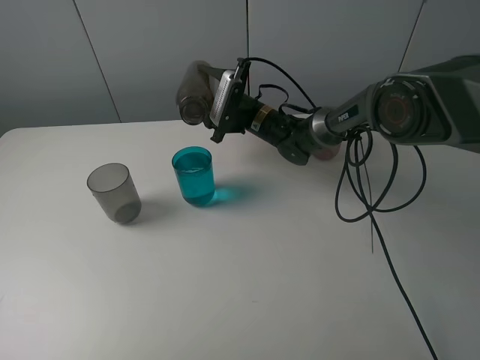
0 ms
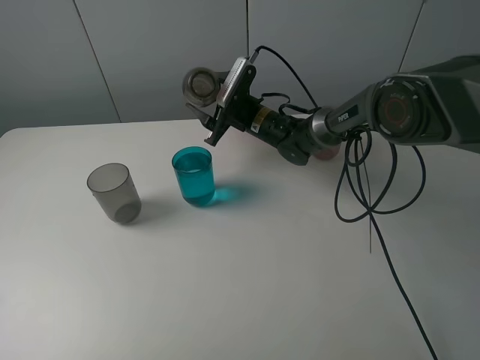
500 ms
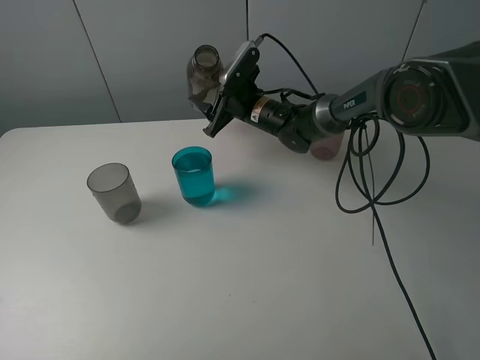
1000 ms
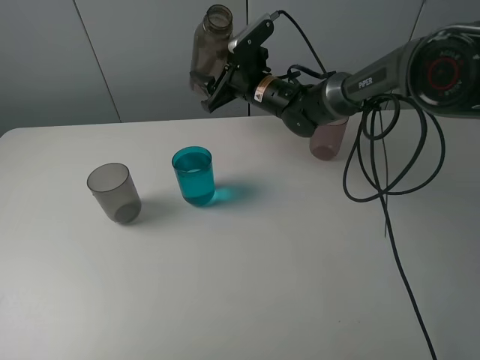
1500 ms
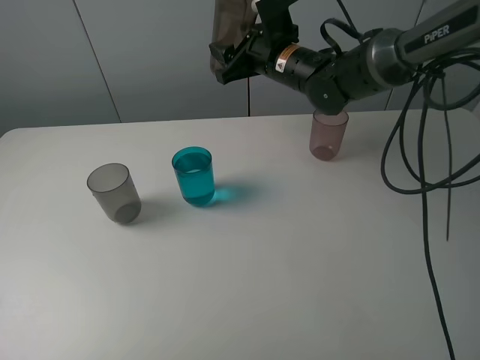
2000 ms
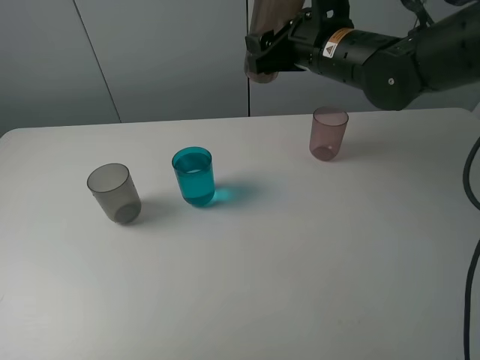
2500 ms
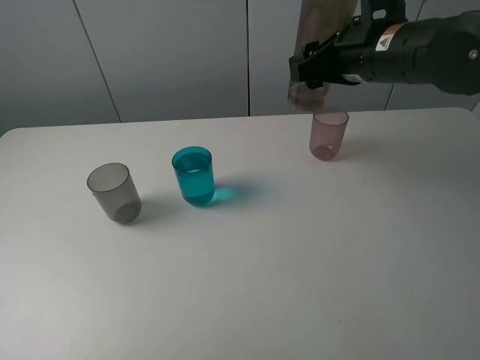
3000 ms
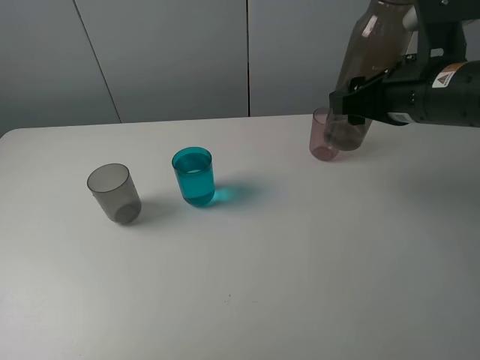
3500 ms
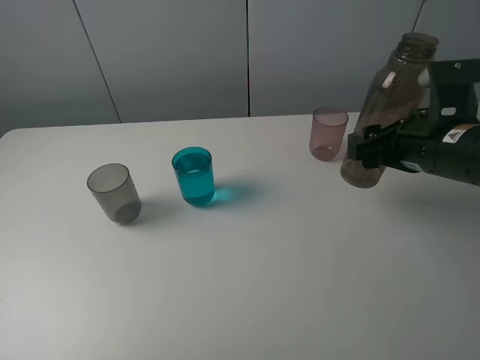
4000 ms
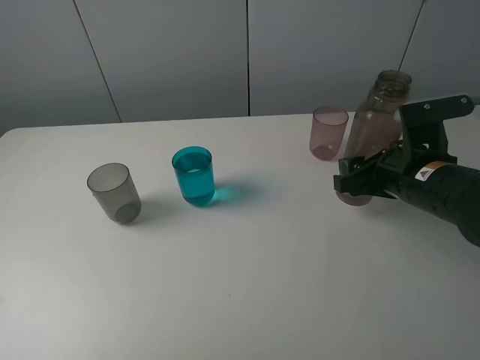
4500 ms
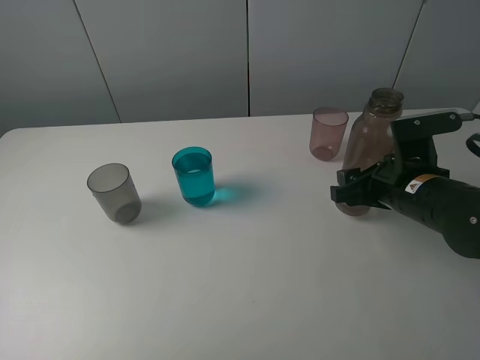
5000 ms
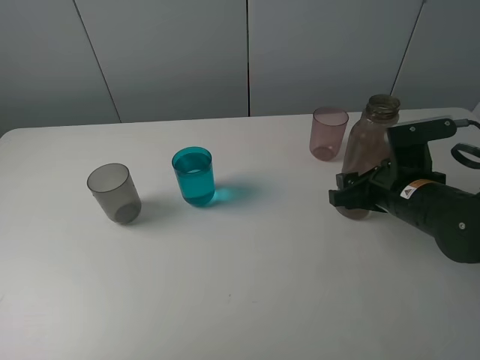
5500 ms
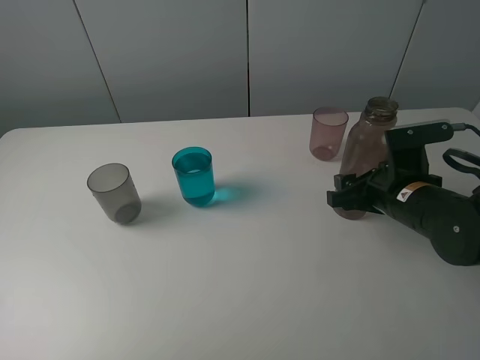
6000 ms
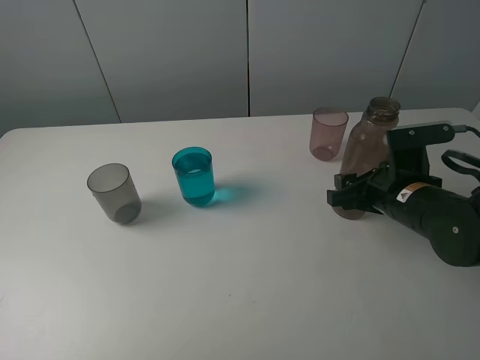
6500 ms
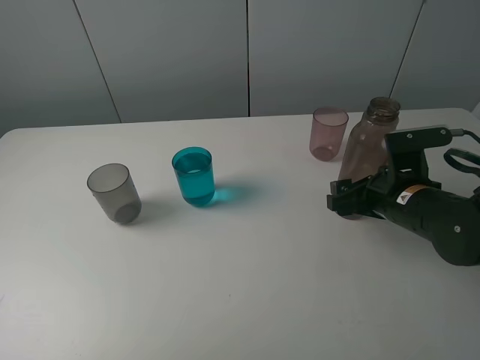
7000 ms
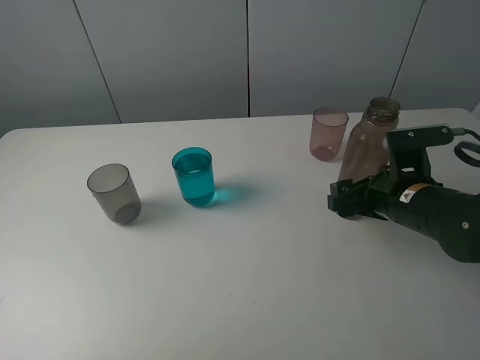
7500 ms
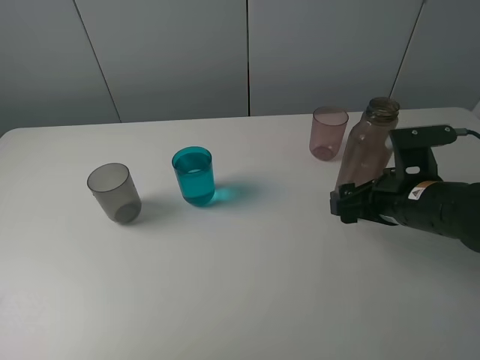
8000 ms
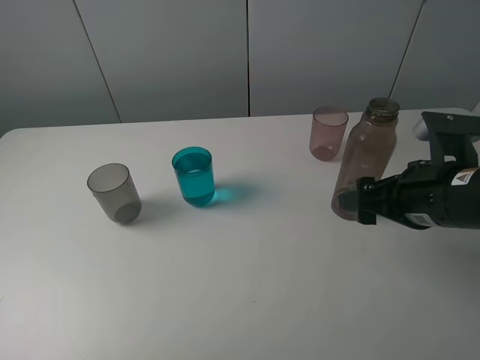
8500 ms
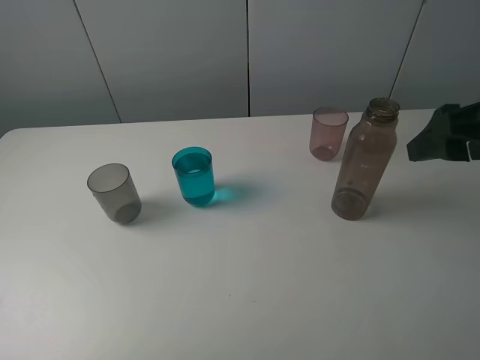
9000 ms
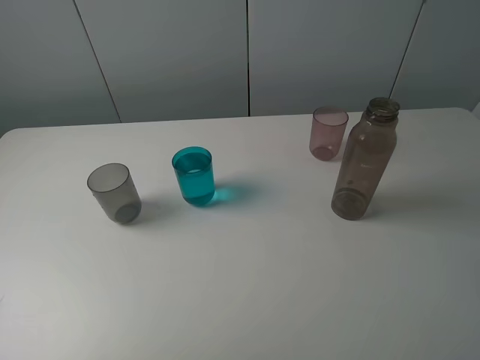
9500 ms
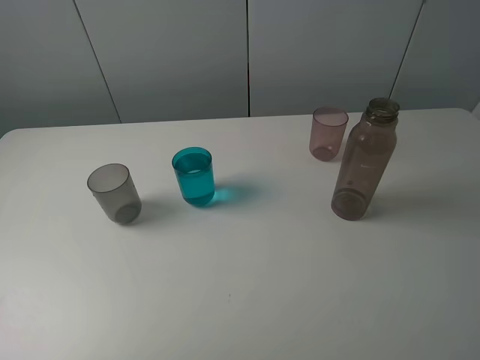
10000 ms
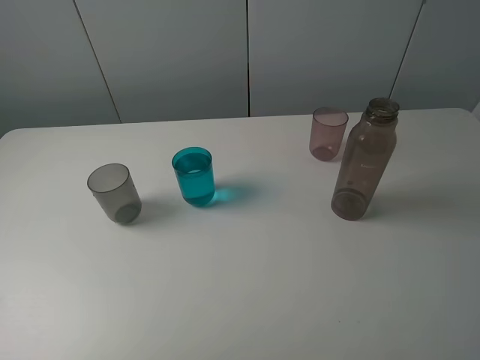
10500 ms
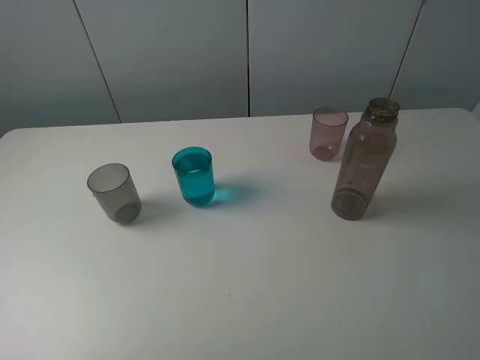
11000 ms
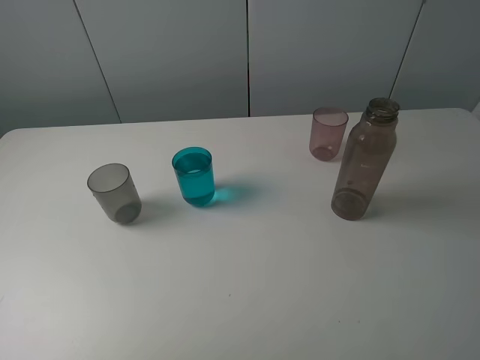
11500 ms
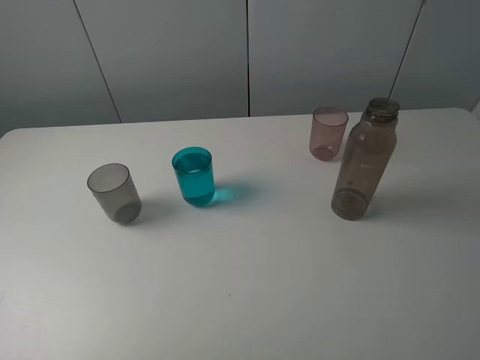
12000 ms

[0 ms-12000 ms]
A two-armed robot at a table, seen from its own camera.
Task of the whole recording: pick up the bottle filled with water and pour water into the middle cup of the three cups.
Step, 0 ms to 8500 ms: Place the transparent bottle with the right gripper.
0 ms to 2000 ms: The right gripper shifts about 10 cm upward.
2000 ms to 4000 ms: The right gripper is displaced backward and to the right by approximately 25 cm.
4000 ms to 6000 ms: The right gripper moves downward, some 10 cm.
6000 ms to 8000 ms: The right gripper opens its fingers.
8000 ms to 10000 ms: The right gripper heads upward, backward and to the right, covering roughly 25 cm.

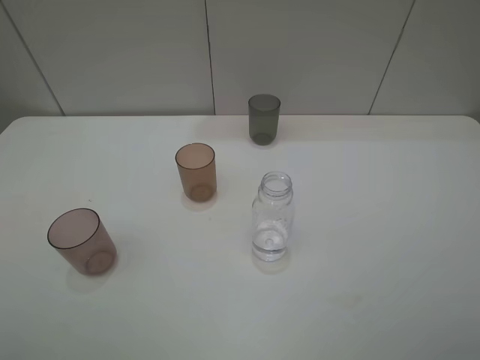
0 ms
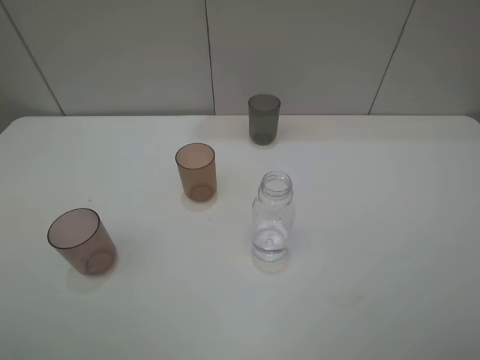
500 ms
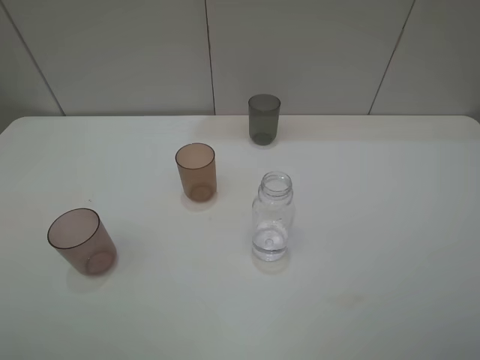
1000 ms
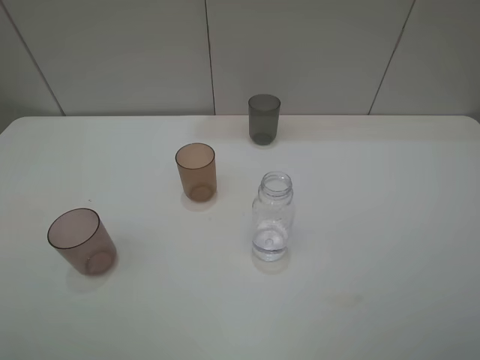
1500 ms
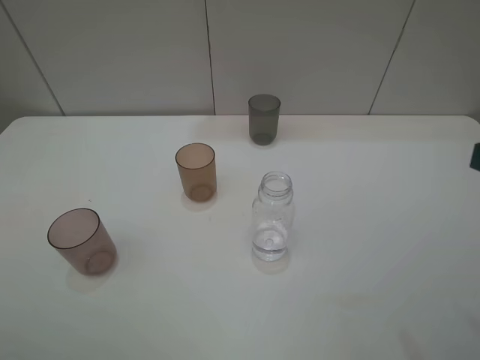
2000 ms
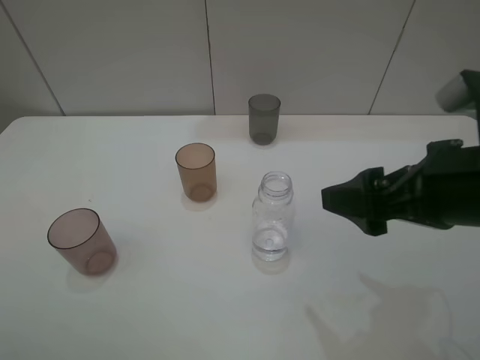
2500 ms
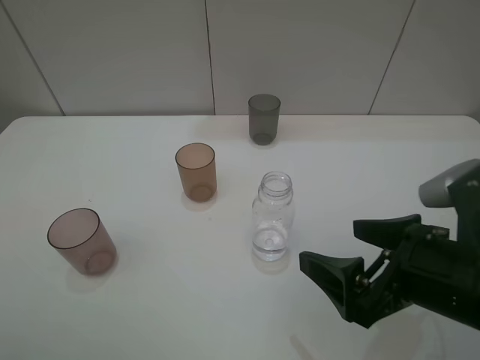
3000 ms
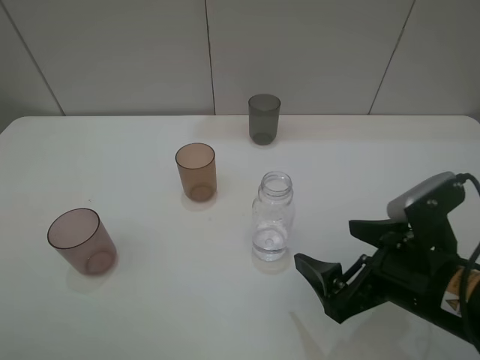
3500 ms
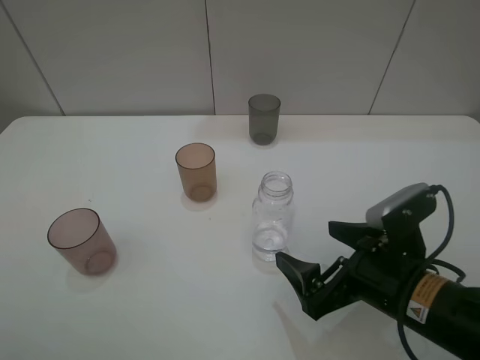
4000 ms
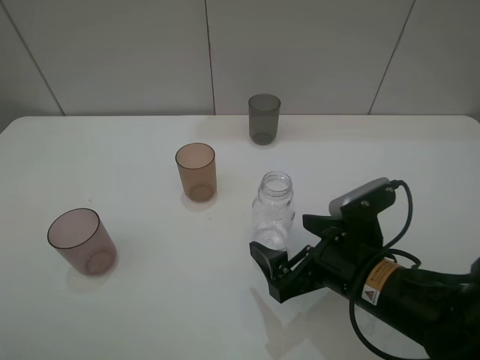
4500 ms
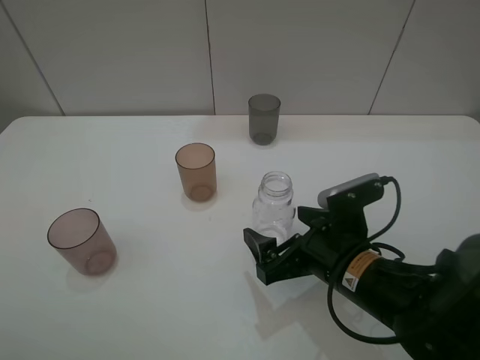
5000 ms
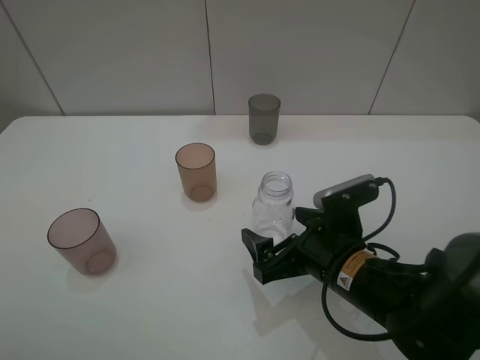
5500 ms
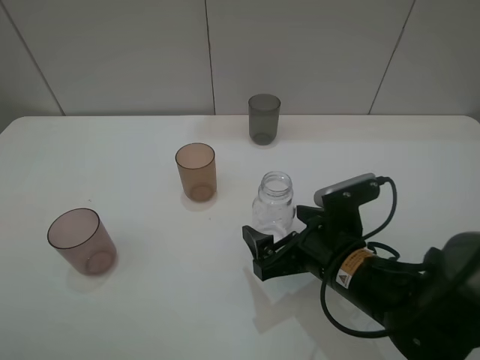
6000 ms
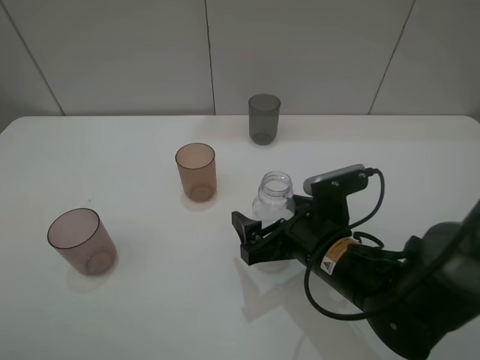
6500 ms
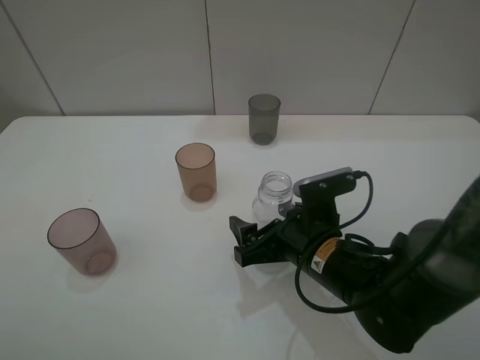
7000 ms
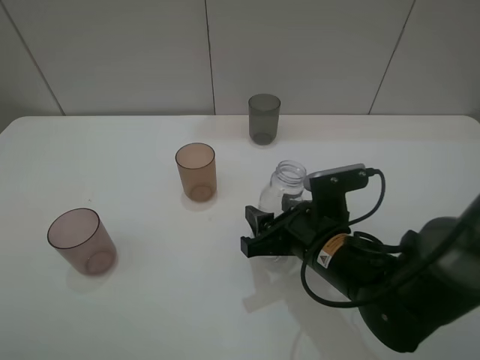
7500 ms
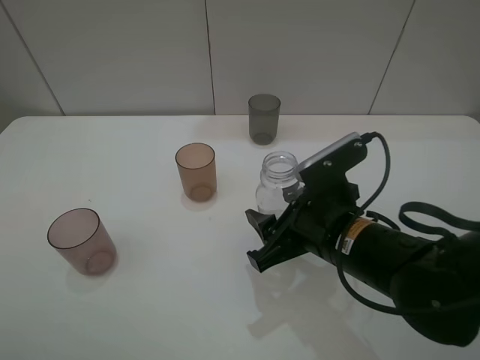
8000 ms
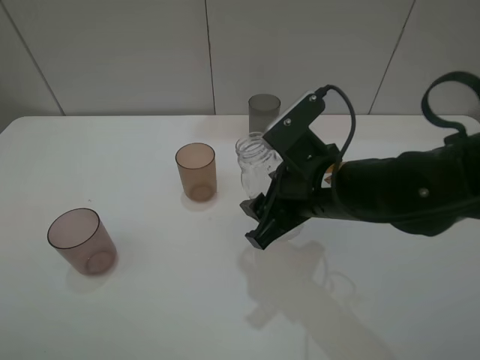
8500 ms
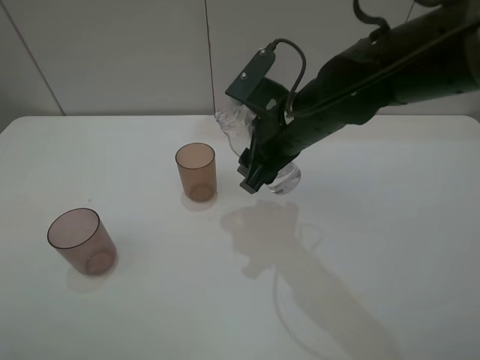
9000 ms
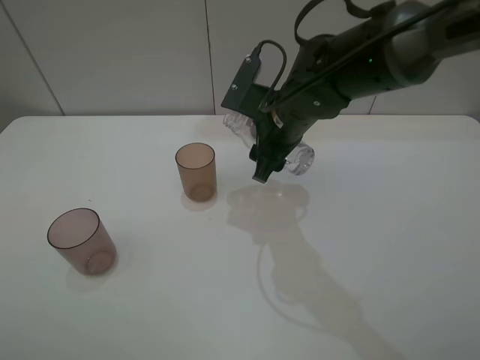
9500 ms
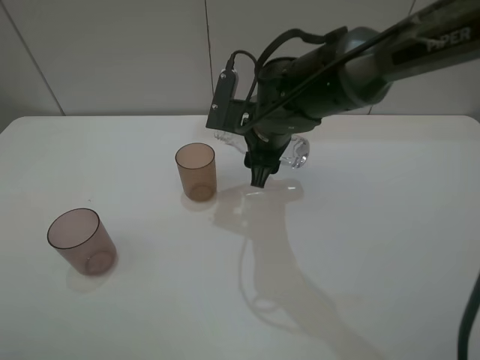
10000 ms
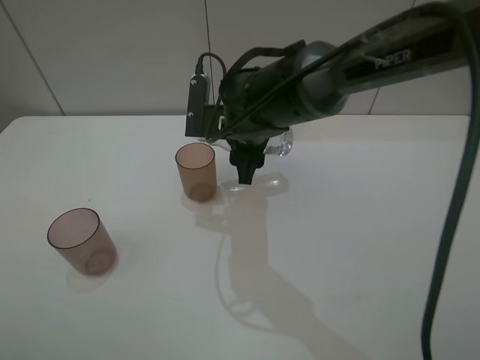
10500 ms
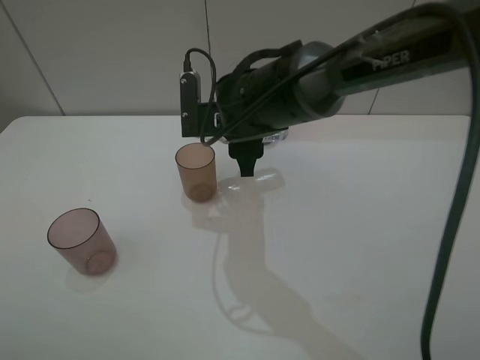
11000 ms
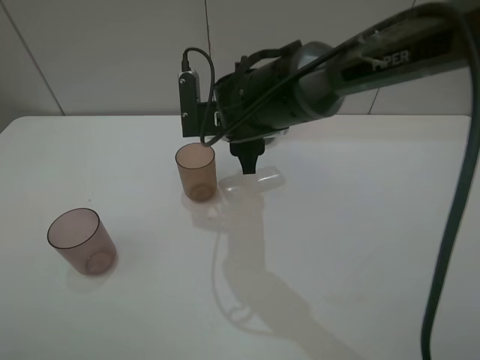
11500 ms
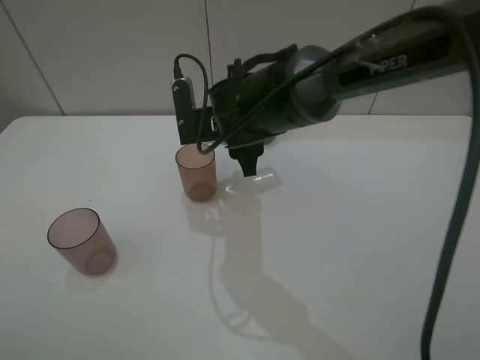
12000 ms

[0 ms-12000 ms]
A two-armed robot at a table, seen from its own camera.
Task of the whole recording: pick up the bottle filled with water and pour water into the middle cup of the three cups.
Step, 0 ms to 7000 ms: Grasp the transparent bottle with the right gripper.
2000 ms to 4000 ms: The right gripper is displaced downward and to the left by some 25 cm.
4000 ms to 6000 ms: The right gripper changes place by approximately 5 cm.
6000 ms to 8000 ms: The right gripper moves upward, some 5 cm, and closes its fingers.
8000 ms to 10000 ms: The right gripper goes roughly 20 cm forward and to the left.

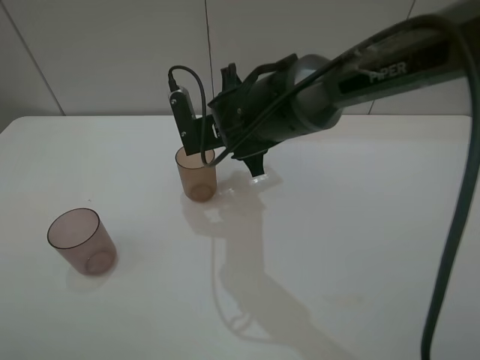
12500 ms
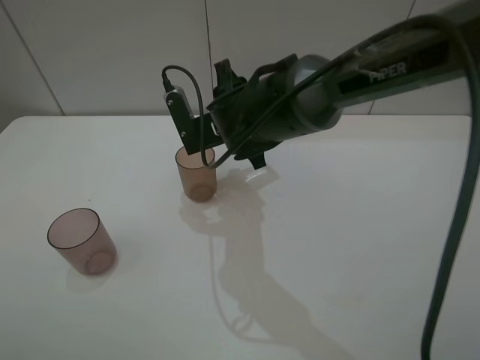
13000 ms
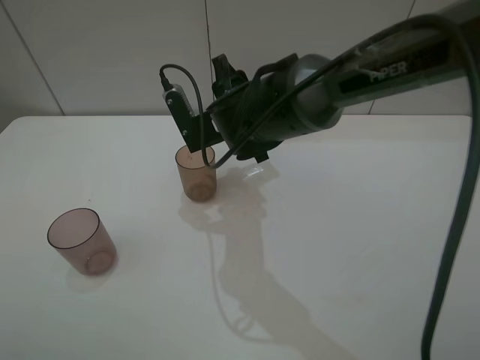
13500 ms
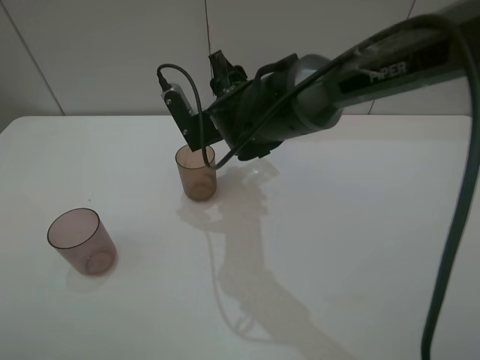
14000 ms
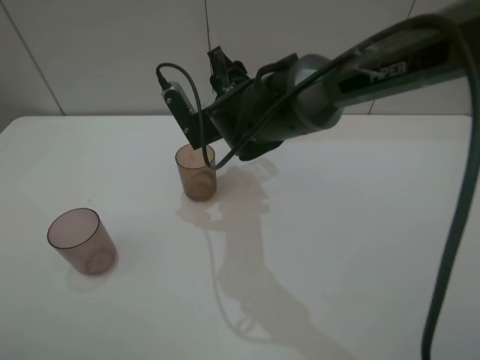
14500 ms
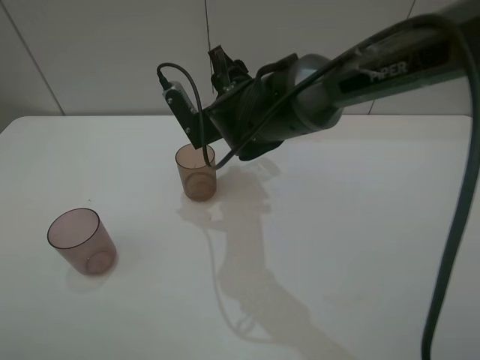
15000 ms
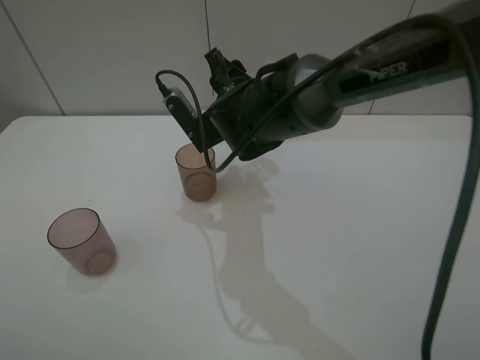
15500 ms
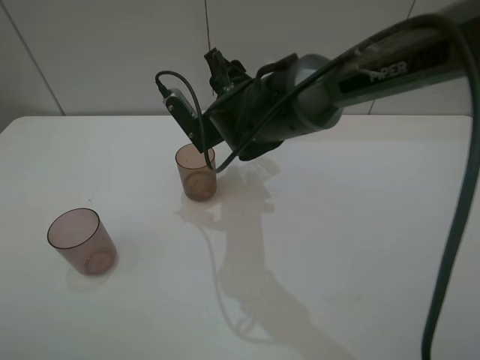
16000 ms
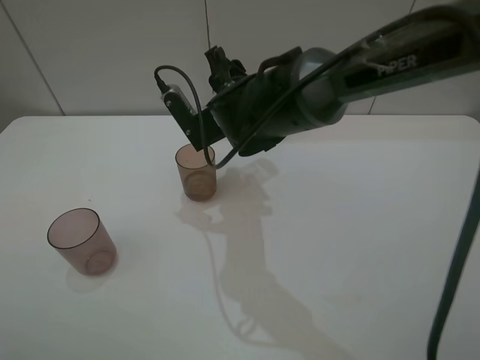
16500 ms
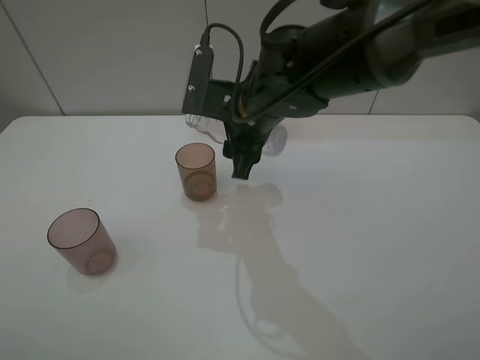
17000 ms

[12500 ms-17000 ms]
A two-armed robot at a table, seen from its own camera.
Task of the whole recording: pick up the bottle filled with water and pour water into the middle cup of the three cups.
12500 ms to 14500 ms: The grippers move only a little.
